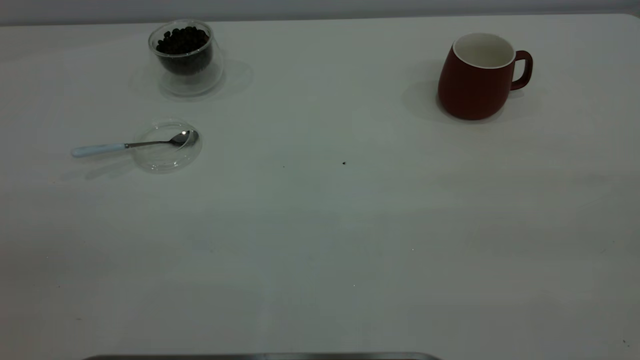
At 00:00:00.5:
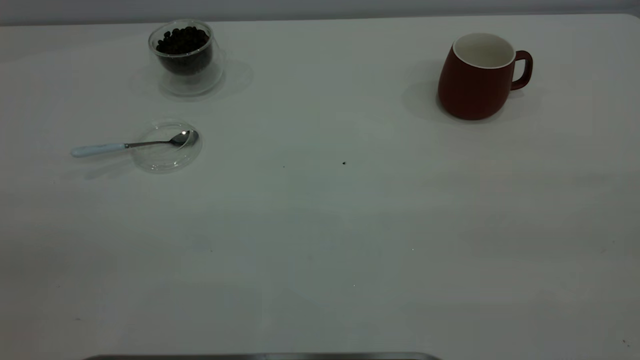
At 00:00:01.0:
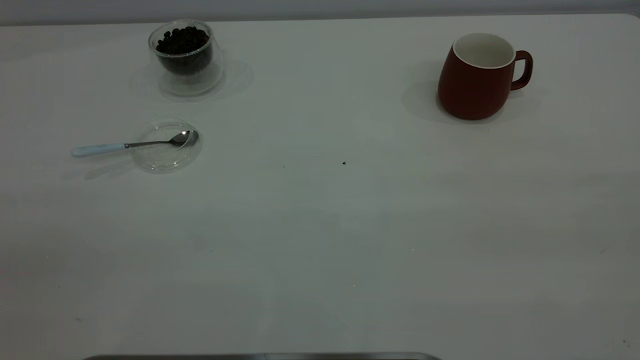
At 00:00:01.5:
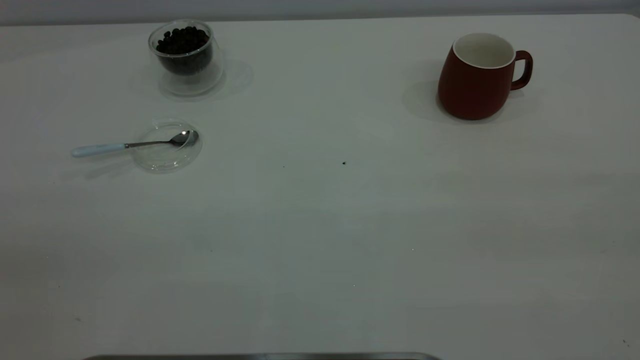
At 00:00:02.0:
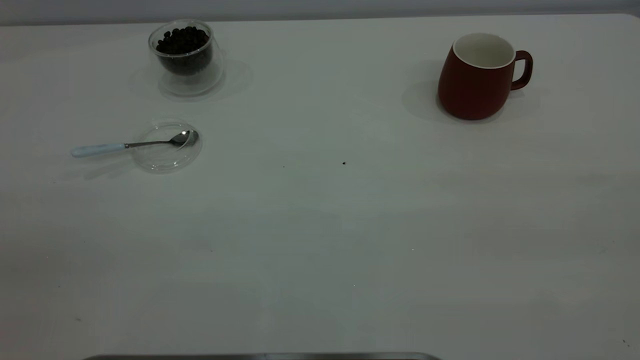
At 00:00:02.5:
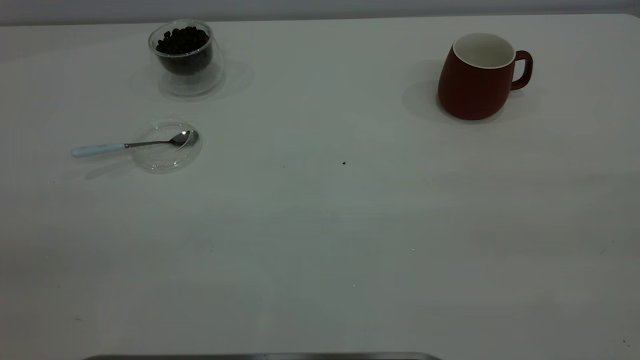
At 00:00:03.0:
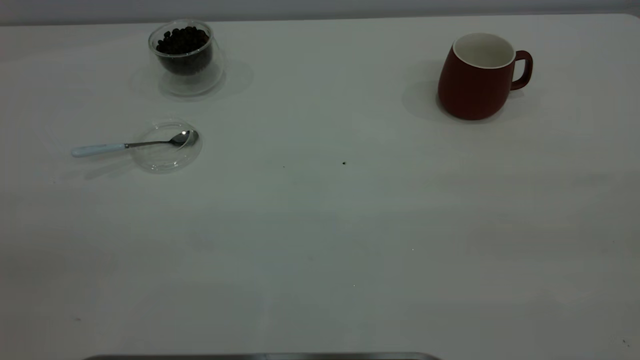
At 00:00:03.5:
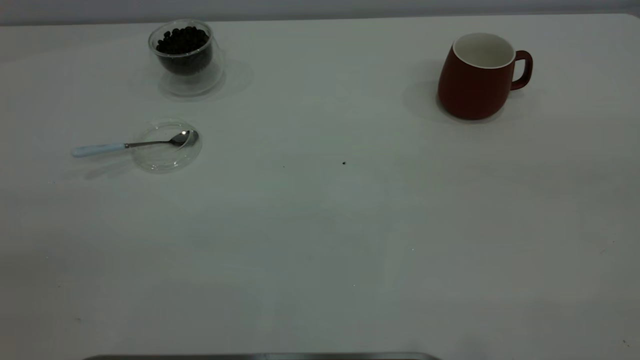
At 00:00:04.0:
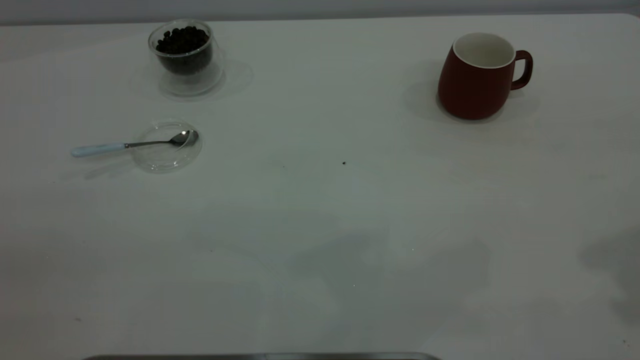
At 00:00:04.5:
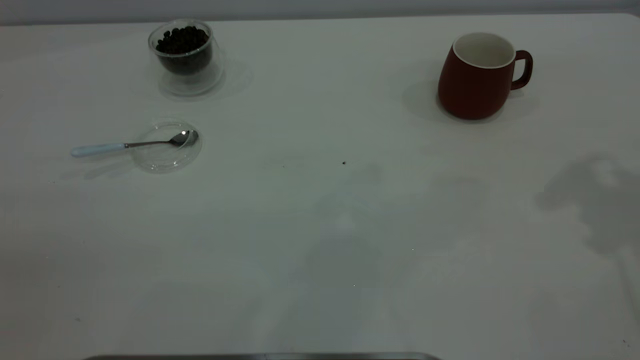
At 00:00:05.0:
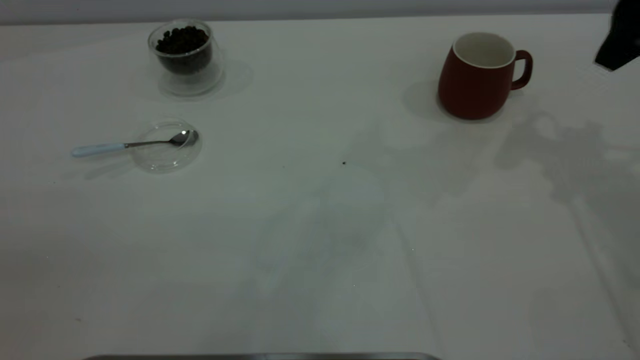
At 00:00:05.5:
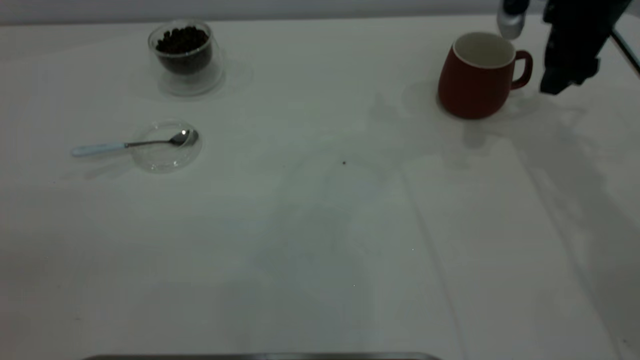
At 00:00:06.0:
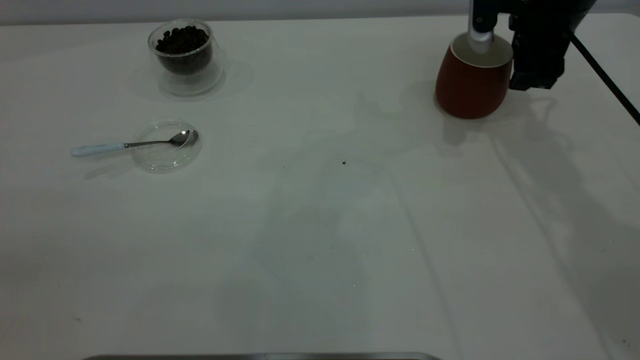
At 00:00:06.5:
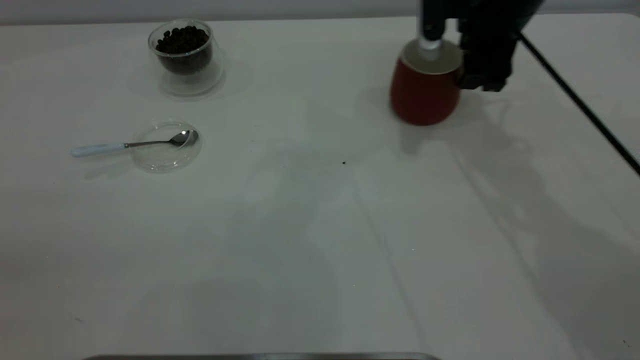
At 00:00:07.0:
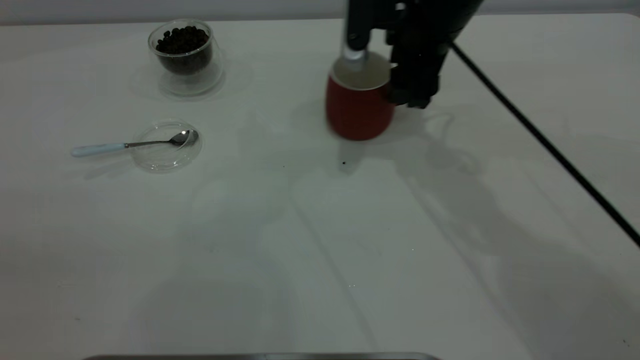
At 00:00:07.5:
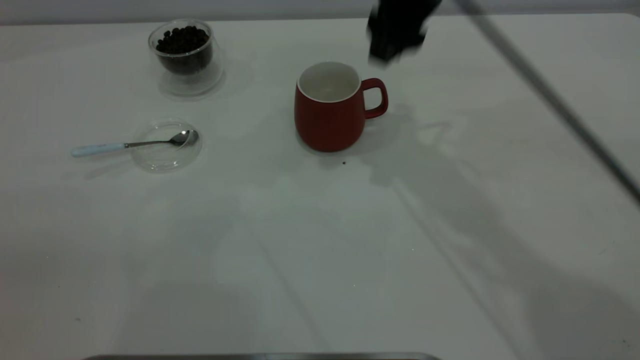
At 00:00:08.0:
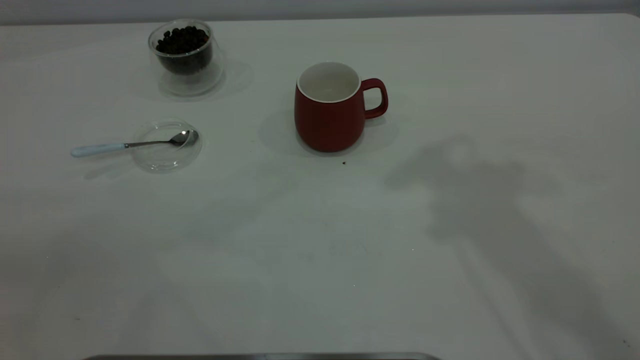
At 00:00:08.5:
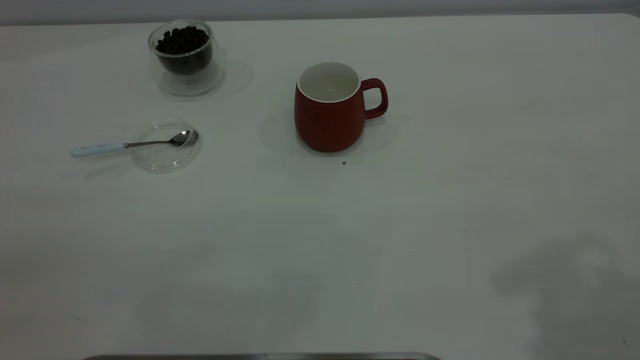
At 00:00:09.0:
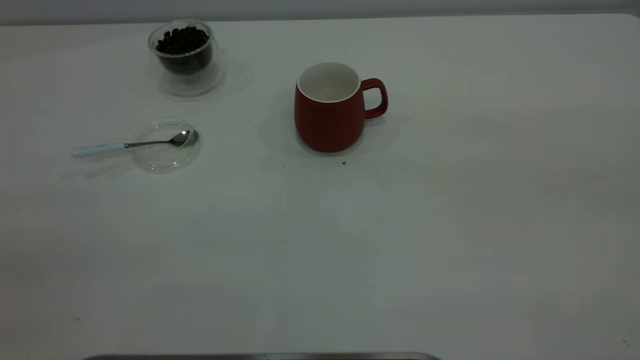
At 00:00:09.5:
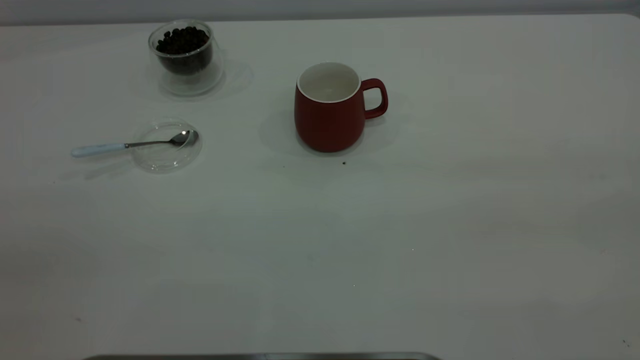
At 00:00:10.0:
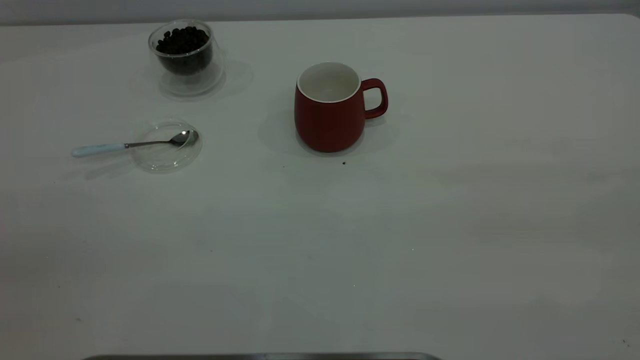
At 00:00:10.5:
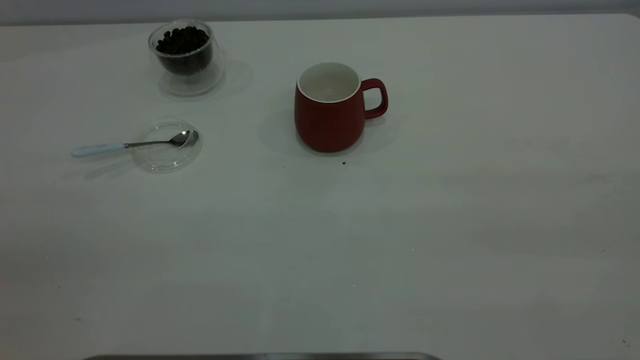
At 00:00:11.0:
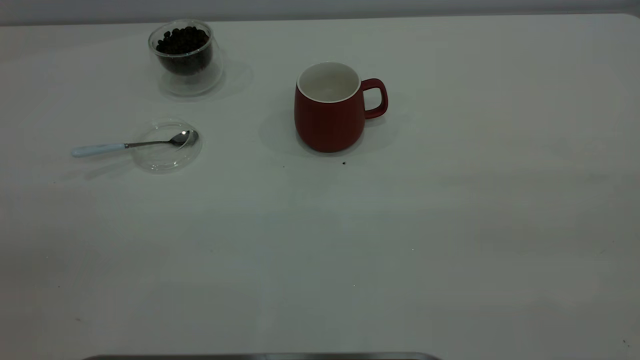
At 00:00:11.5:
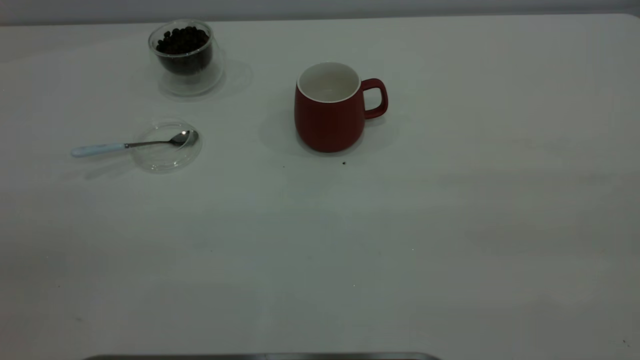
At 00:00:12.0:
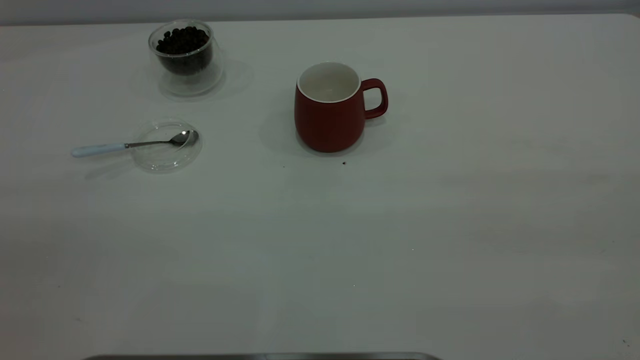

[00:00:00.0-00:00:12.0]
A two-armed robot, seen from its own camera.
Task of the whole recording: the right gripper place the red cup in the center of the table, the left gripper take the blue spoon from the cup lid and scoop out the coffee beans from the coffee cup and put them into the red cup, the left gripper put the spoon back into the cup lid.
Step, 00:00:00.0 to 00:00:07.0: Move the cup to the center of view.
00:00:00.0 to 00:00:02.0: Neither gripper changes place.
00:00:04.0 to 00:00:06.0: The right gripper travels forward and downward by approximately 30 cm.
00:00:06.0 to 00:00:08.0: The right gripper goes roughly 30 cm upward and backward.

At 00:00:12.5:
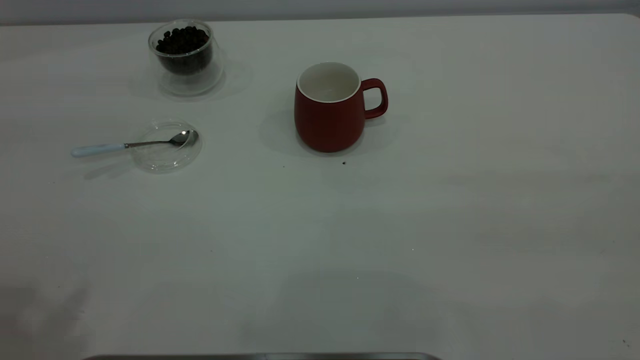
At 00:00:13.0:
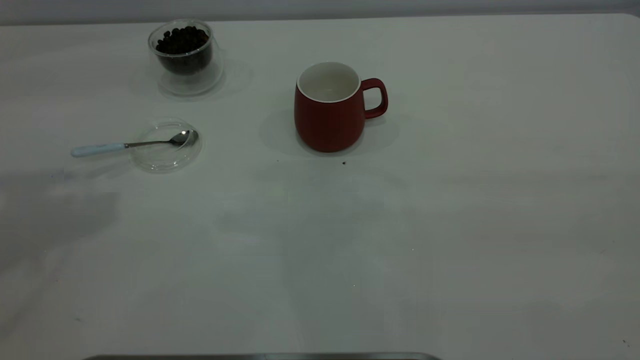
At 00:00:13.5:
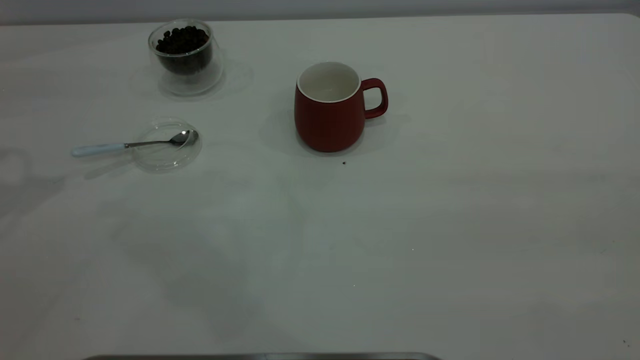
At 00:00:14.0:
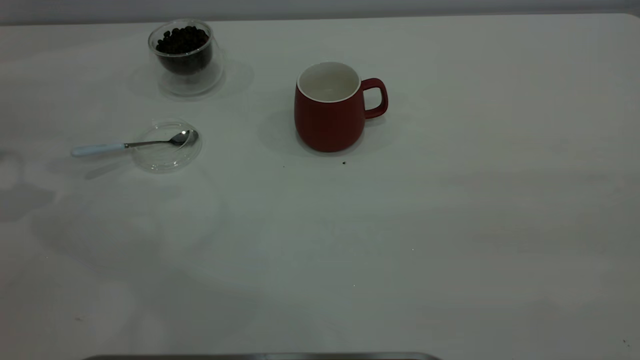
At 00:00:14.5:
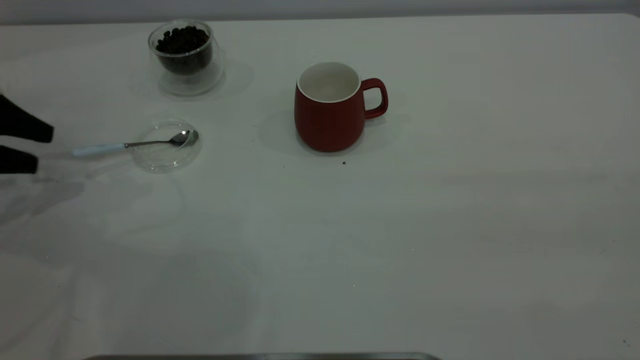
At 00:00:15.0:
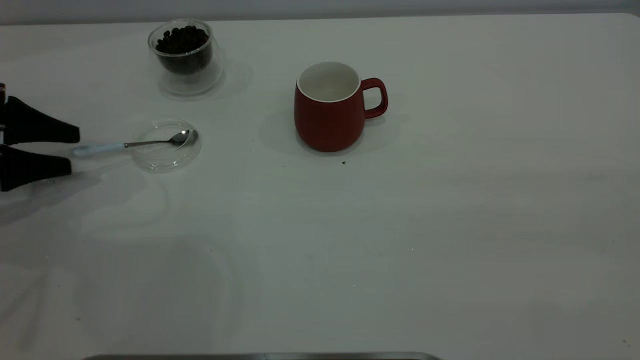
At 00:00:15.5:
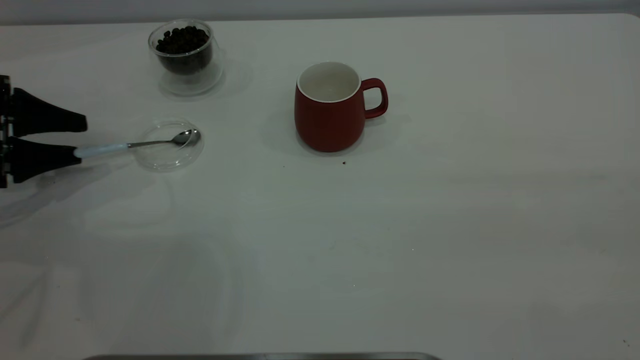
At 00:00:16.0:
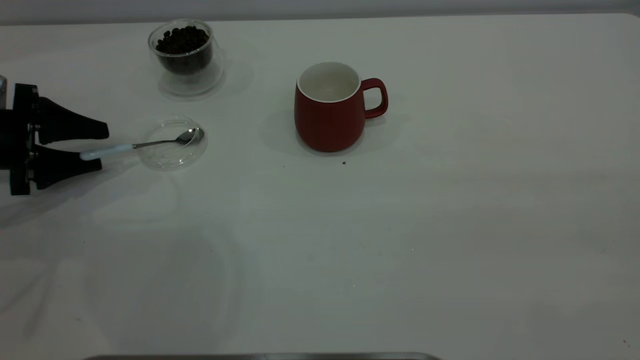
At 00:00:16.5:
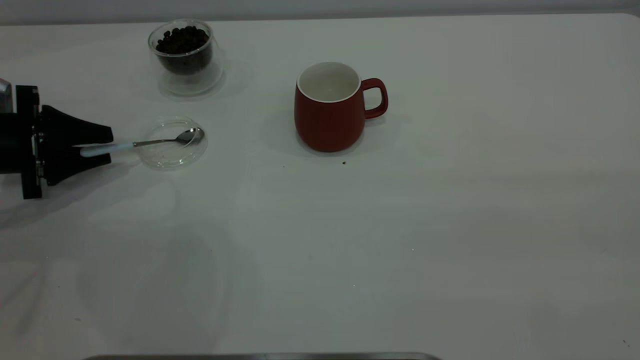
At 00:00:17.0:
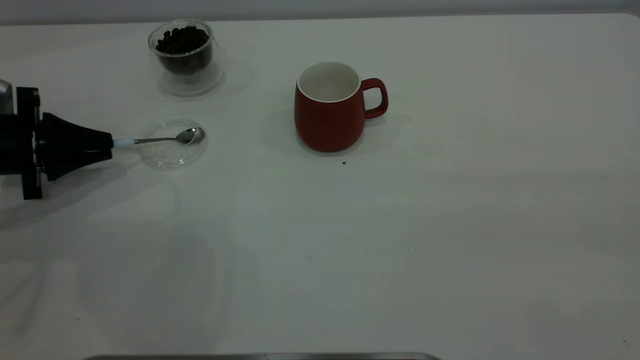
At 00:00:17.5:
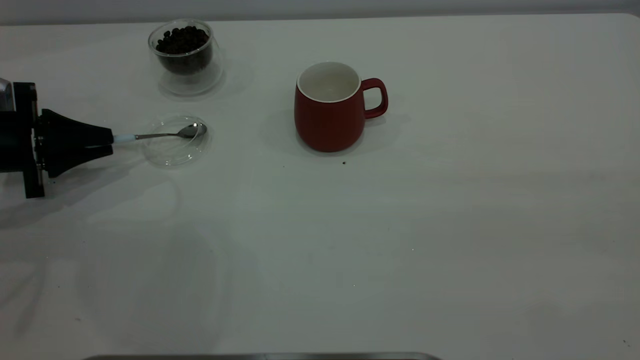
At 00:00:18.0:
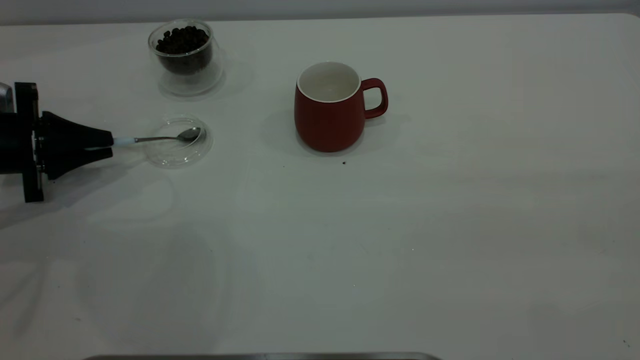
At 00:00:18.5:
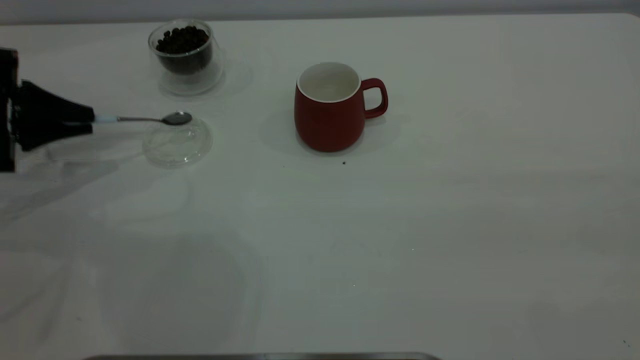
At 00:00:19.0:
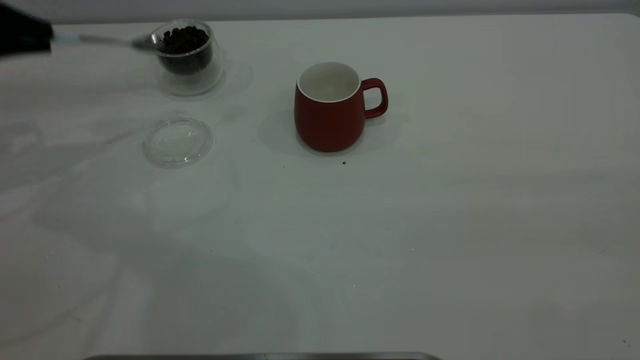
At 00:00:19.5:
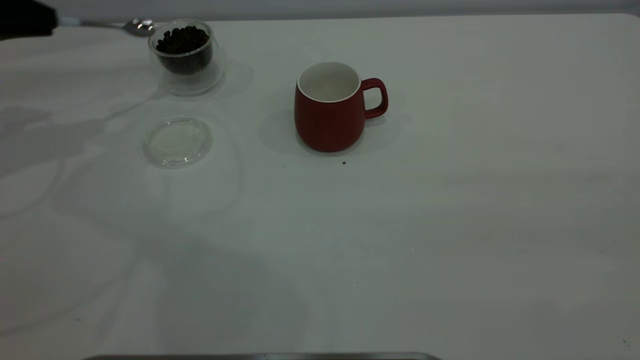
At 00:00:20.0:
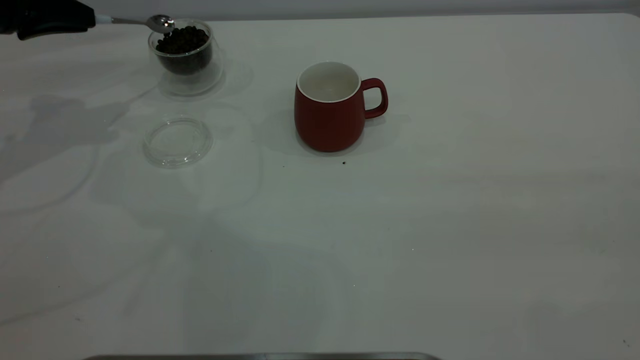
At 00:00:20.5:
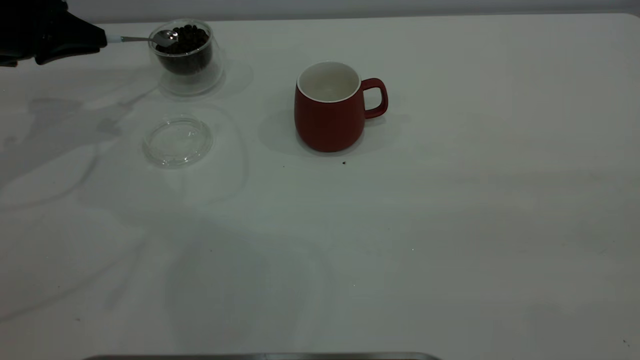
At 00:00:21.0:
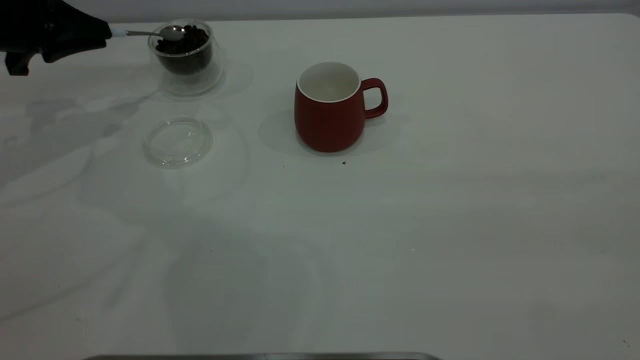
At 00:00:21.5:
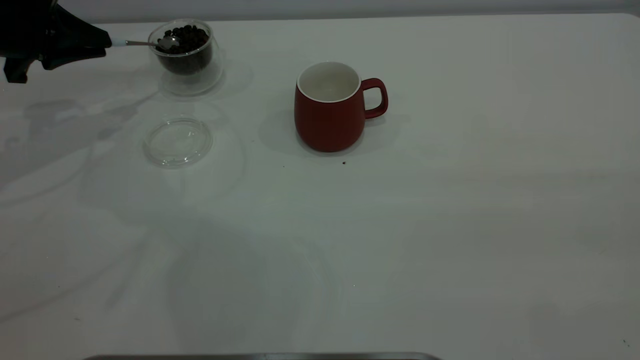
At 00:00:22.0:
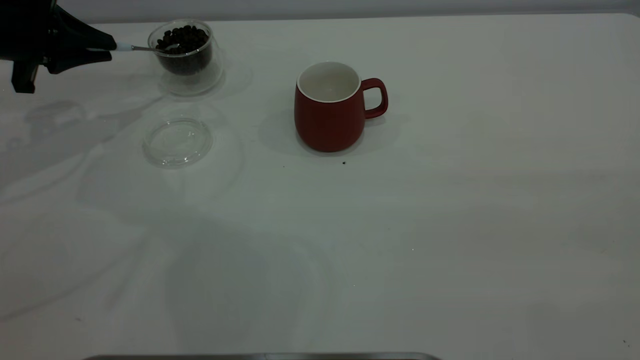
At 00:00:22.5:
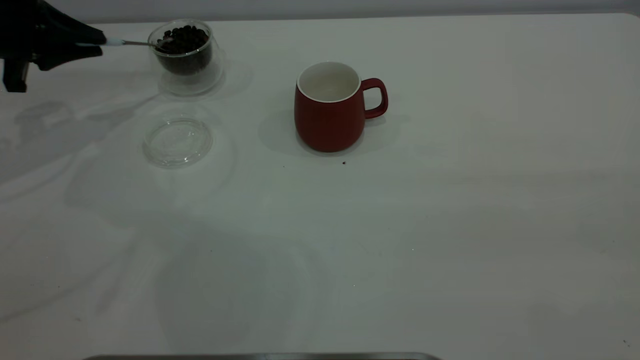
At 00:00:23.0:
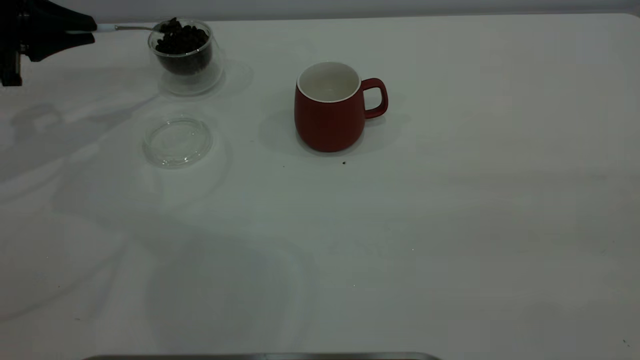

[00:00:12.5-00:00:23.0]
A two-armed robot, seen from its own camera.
Task of the whole recording: the right gripper place the red cup in the center of the table, the left gripper take the blue spoon from the cup lid and scoop out the coffee beans from the coffee cup and put them into the red cup, the left gripper put the spoon back into the cup lid.
Step, 00:00:12.5 to 00:00:18.5: Pick up the spoon.
00:00:12.5 to 00:00:14.5: The left gripper goes approximately 40 cm downward, forward and to the left.
00:00:14.5 to 00:00:16.5: The left gripper is displaced downward by approximately 5 cm, and closes up.
00:00:16.5 to 00:00:19.0: The left gripper goes some 15 cm upward, and closes.
00:00:19.0 to 00:00:21.0: The left gripper shifts by about 5 cm.
00:00:21.0 to 00:00:23.0: The grippers move only a little.
